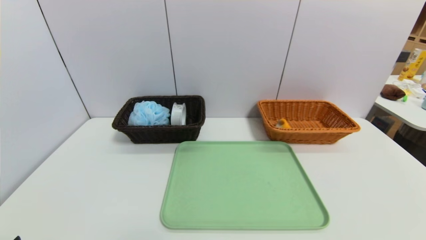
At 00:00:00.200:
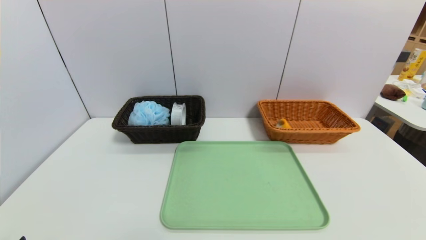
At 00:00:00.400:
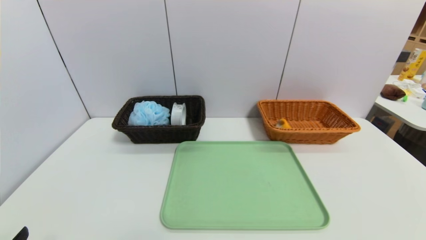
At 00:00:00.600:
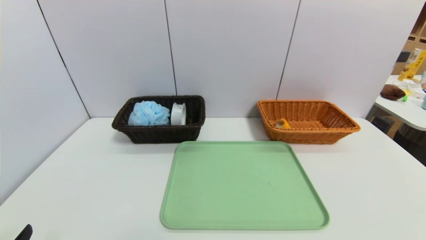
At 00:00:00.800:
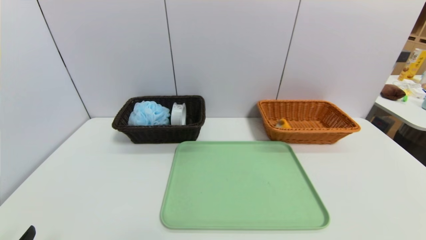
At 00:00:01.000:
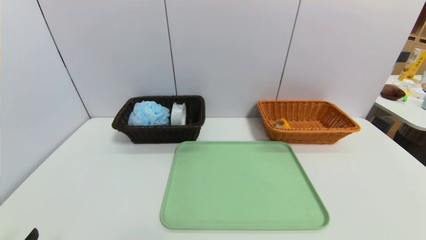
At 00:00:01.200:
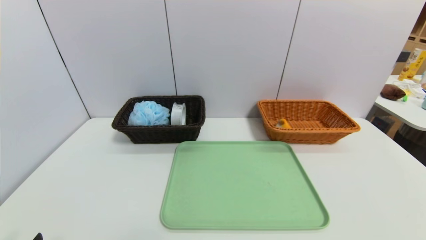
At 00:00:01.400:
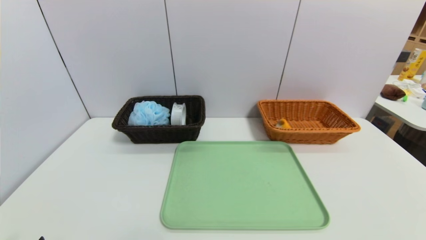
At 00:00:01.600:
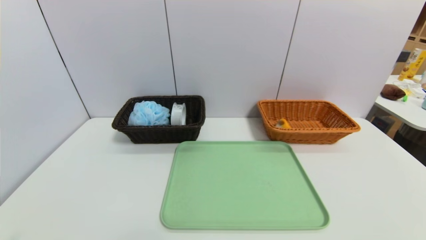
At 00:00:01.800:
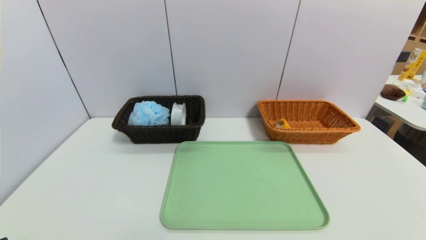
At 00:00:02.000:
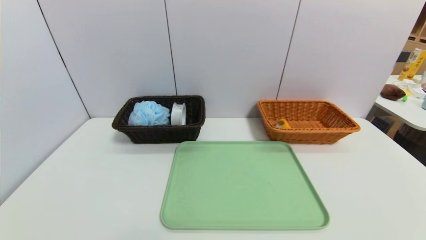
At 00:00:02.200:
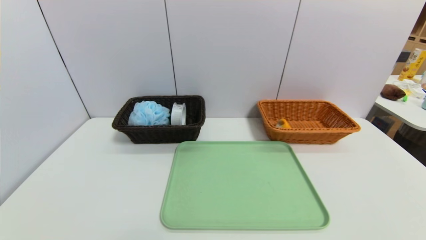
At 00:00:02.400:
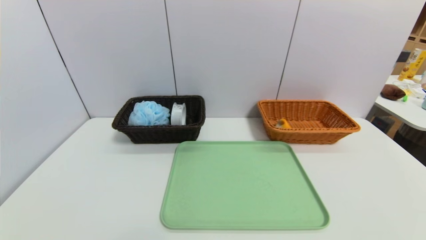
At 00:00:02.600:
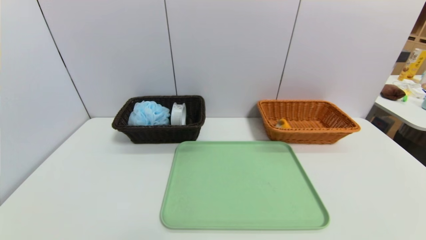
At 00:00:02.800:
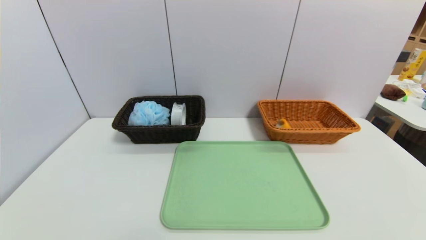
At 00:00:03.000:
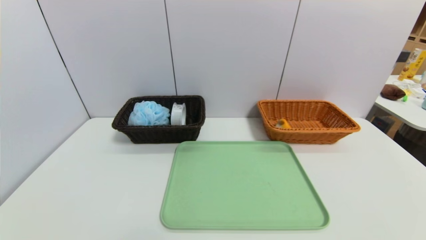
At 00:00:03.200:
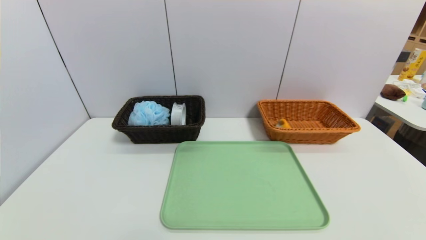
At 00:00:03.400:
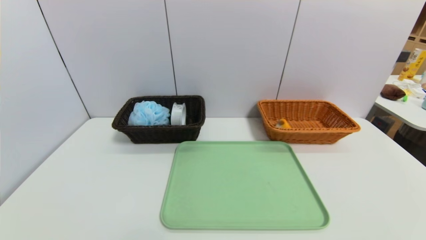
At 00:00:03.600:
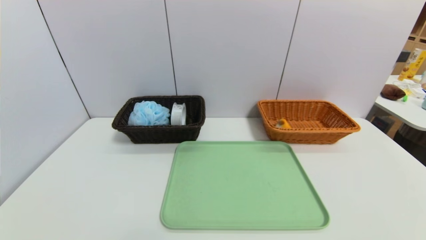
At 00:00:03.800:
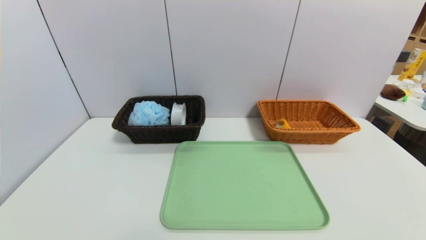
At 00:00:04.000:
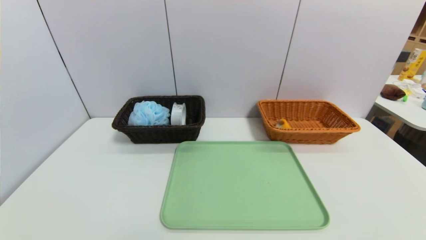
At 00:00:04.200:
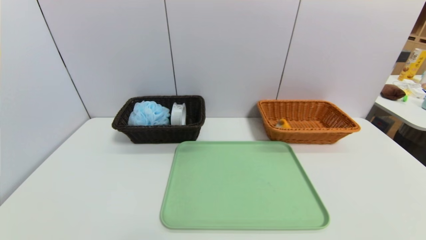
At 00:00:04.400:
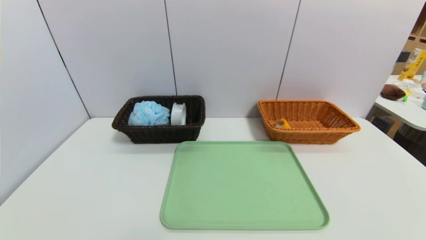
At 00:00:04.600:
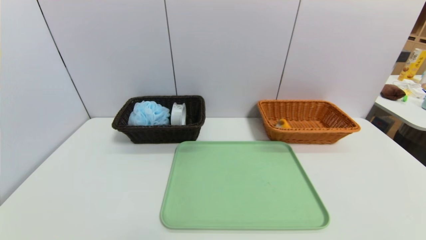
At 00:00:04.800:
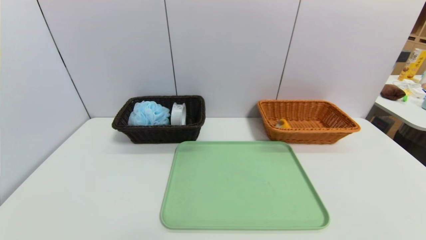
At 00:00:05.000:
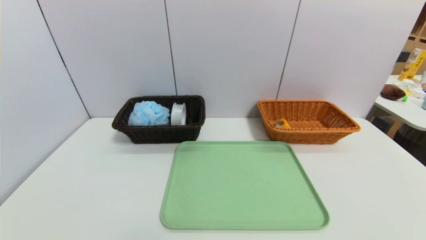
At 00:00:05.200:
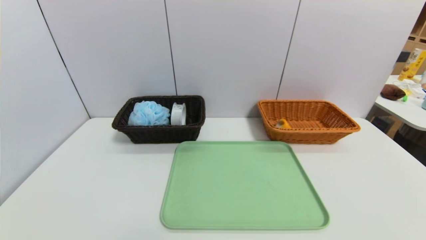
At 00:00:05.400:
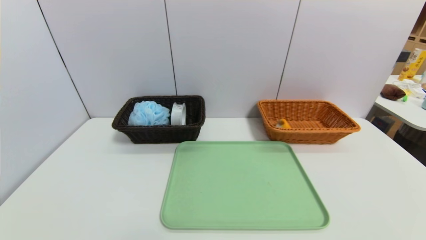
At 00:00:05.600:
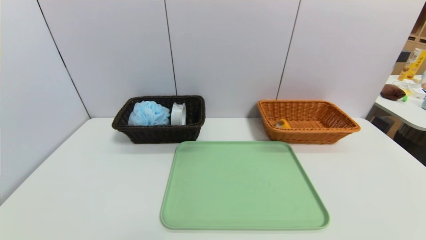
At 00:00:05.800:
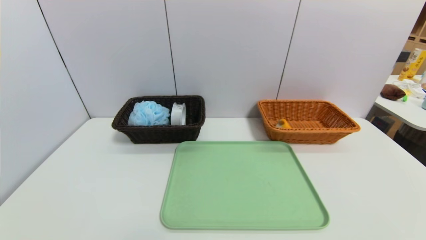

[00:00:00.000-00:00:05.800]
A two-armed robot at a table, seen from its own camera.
Task of the whole recording: place the food in the right basket with the right gripper, and place the non food items in the left basket with the left gripper.
00:00:04.400 to 00:00:05.800: Neither gripper changes place.

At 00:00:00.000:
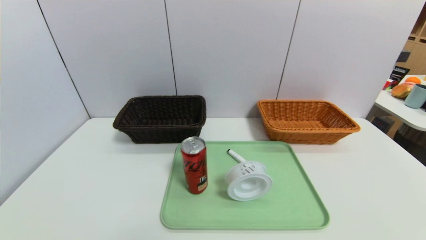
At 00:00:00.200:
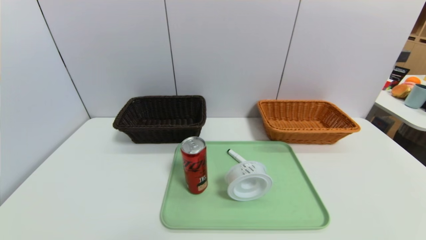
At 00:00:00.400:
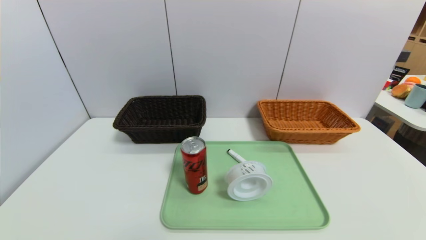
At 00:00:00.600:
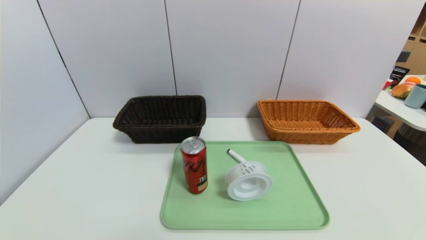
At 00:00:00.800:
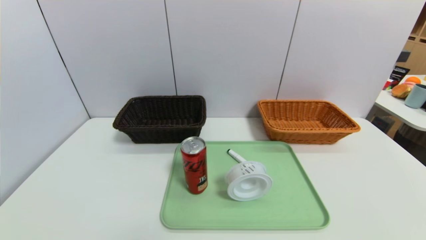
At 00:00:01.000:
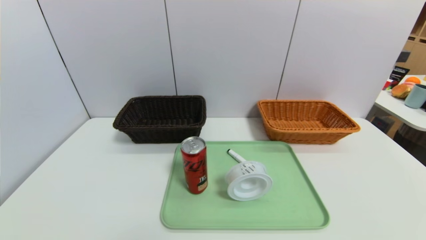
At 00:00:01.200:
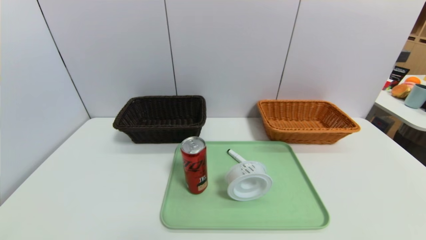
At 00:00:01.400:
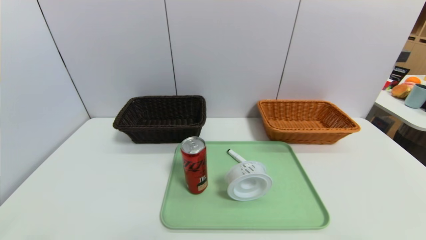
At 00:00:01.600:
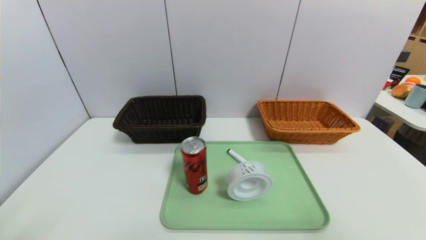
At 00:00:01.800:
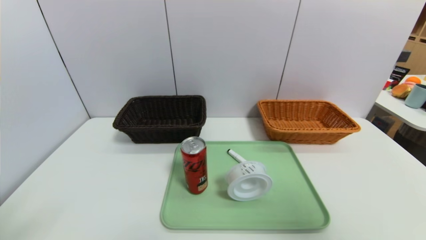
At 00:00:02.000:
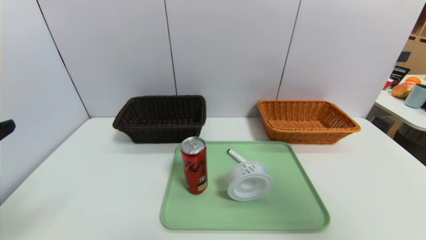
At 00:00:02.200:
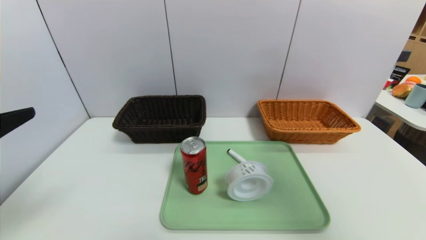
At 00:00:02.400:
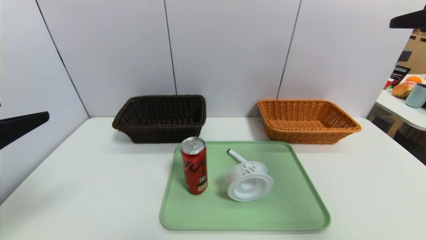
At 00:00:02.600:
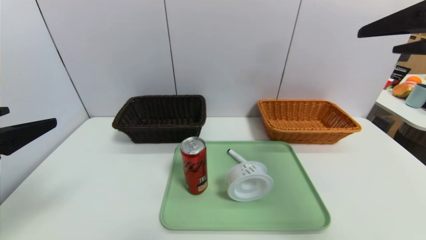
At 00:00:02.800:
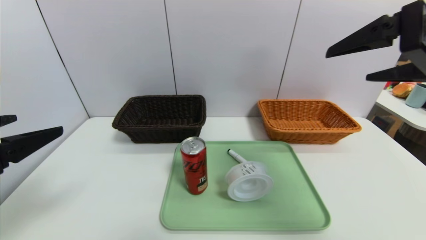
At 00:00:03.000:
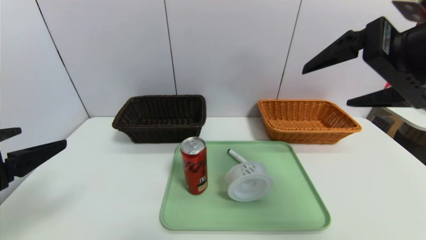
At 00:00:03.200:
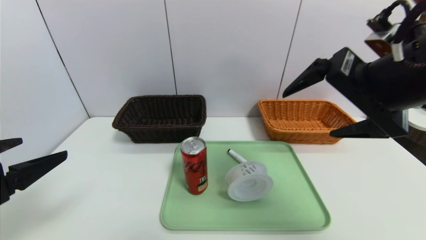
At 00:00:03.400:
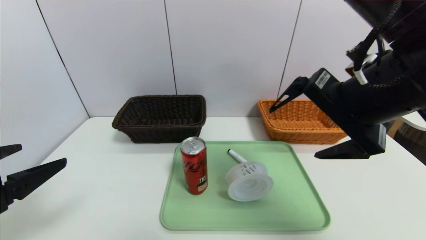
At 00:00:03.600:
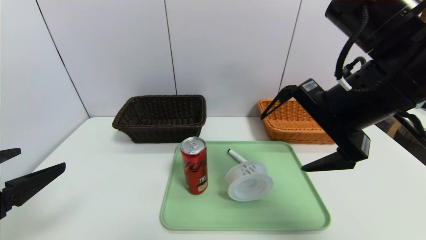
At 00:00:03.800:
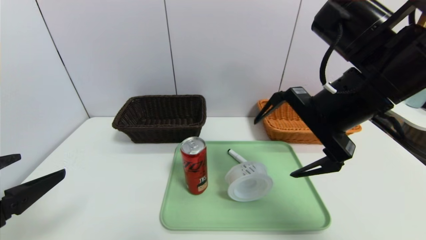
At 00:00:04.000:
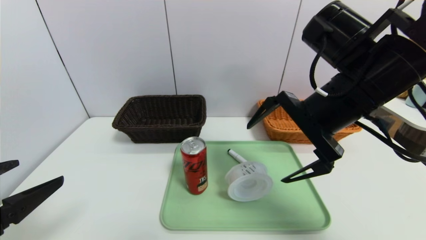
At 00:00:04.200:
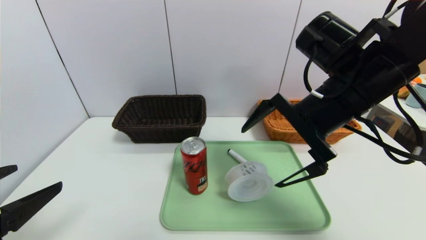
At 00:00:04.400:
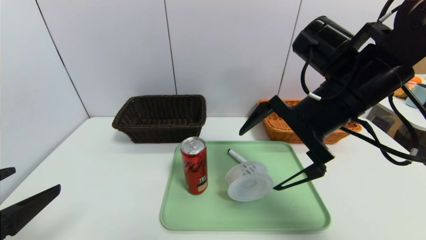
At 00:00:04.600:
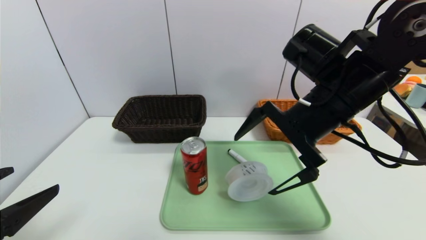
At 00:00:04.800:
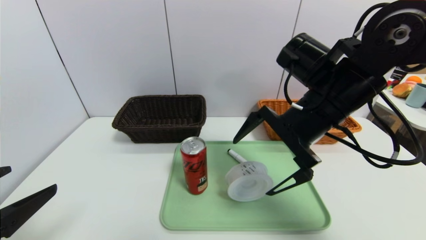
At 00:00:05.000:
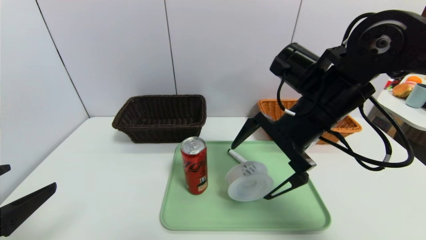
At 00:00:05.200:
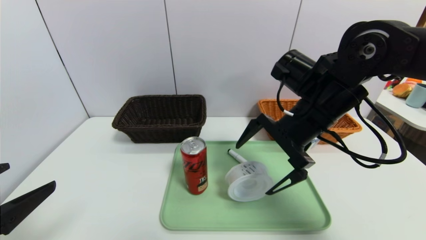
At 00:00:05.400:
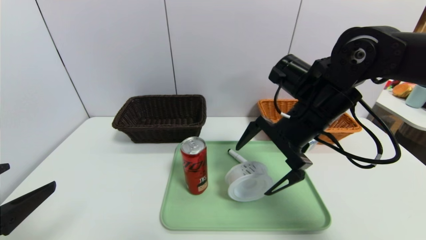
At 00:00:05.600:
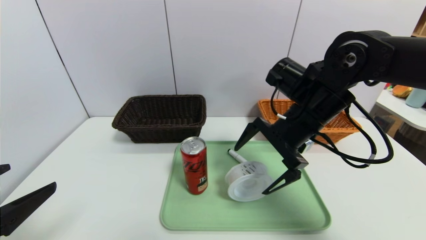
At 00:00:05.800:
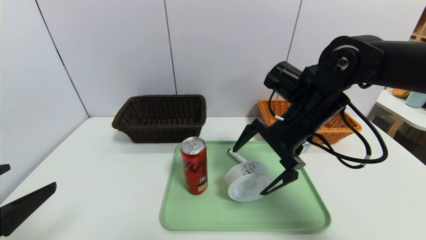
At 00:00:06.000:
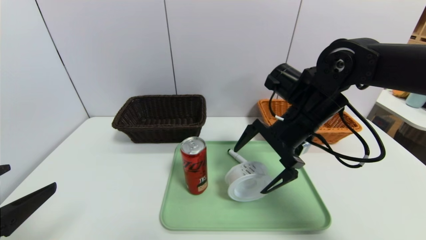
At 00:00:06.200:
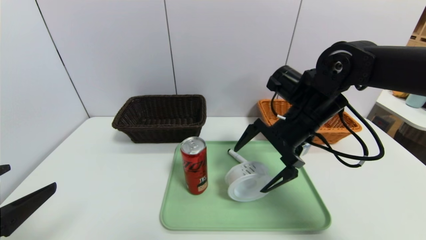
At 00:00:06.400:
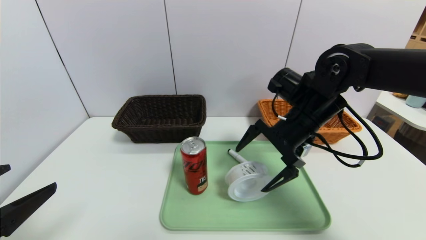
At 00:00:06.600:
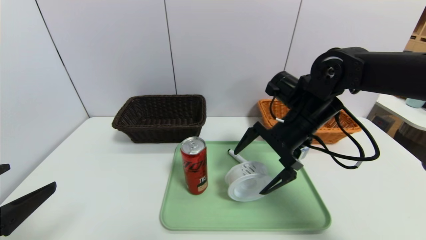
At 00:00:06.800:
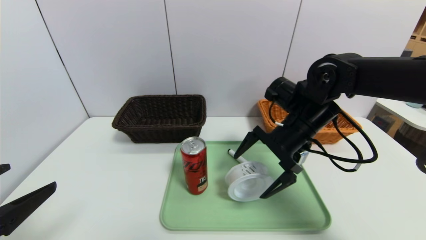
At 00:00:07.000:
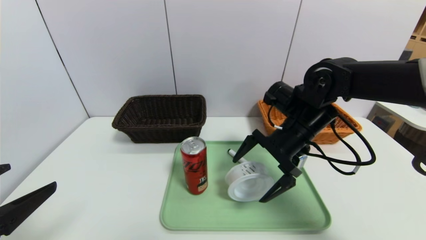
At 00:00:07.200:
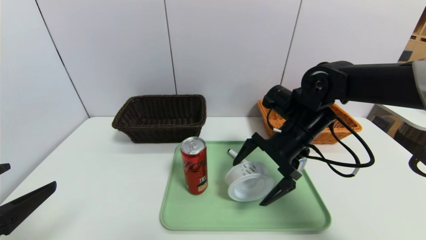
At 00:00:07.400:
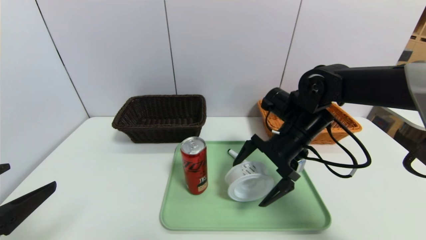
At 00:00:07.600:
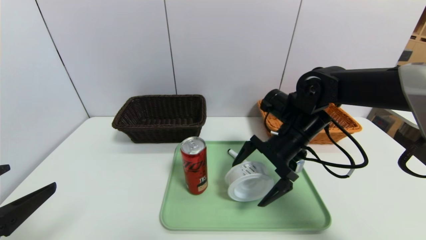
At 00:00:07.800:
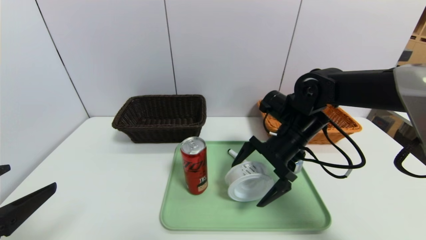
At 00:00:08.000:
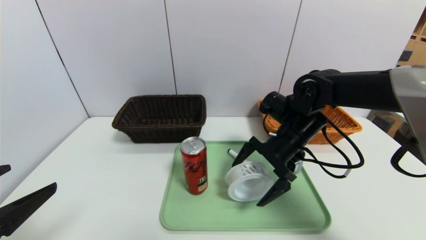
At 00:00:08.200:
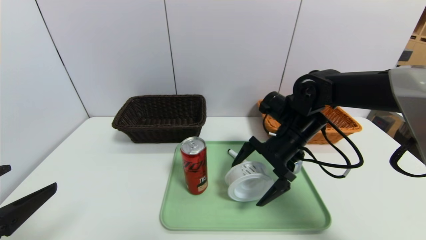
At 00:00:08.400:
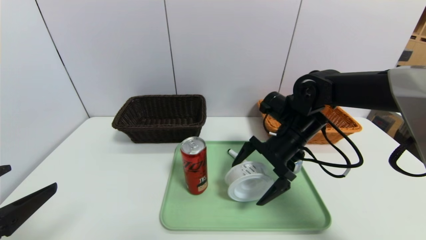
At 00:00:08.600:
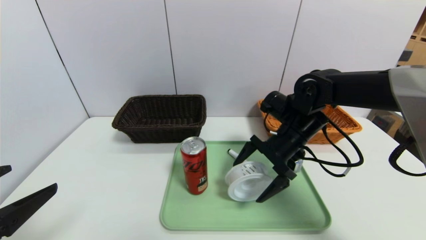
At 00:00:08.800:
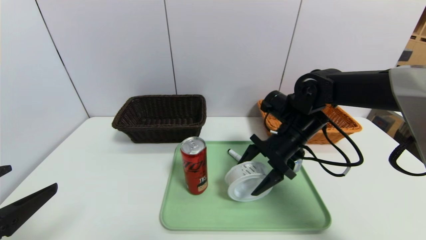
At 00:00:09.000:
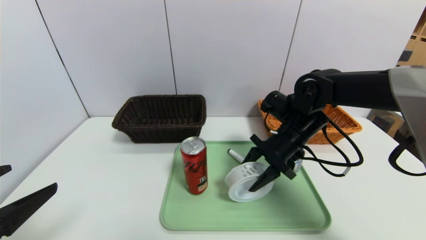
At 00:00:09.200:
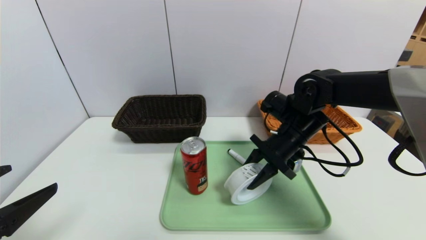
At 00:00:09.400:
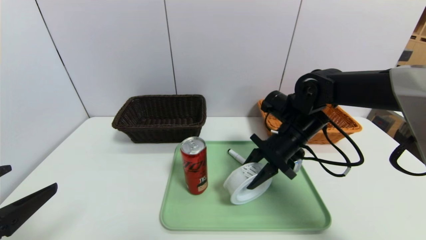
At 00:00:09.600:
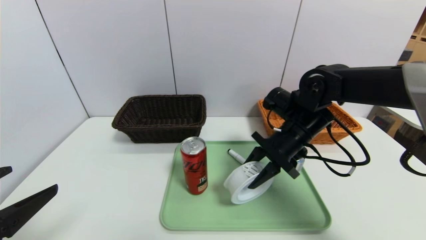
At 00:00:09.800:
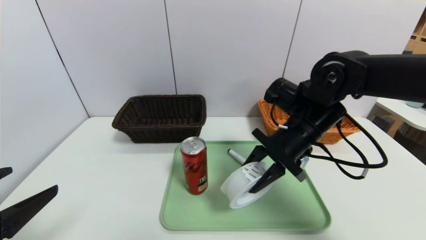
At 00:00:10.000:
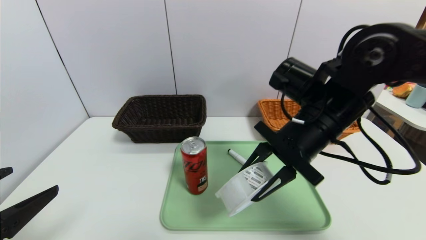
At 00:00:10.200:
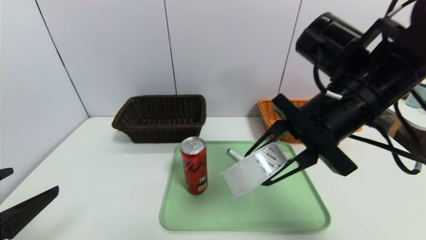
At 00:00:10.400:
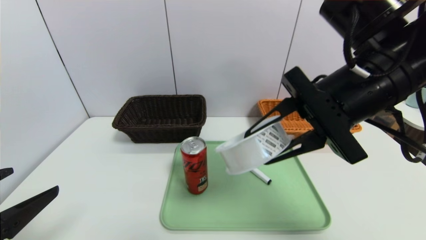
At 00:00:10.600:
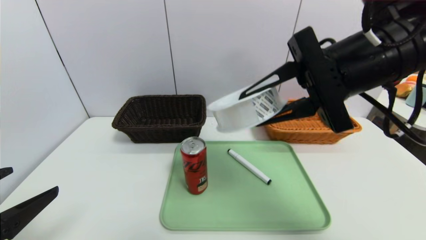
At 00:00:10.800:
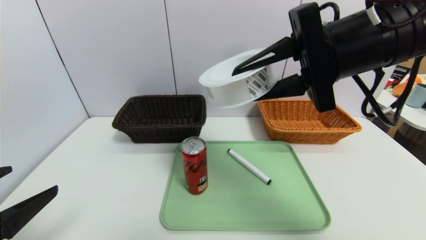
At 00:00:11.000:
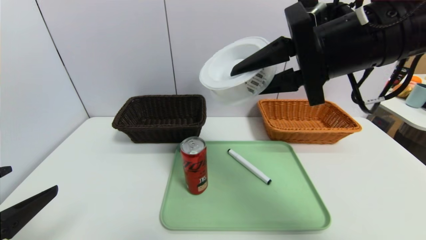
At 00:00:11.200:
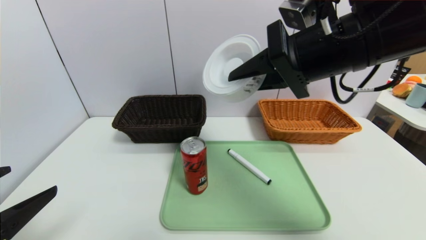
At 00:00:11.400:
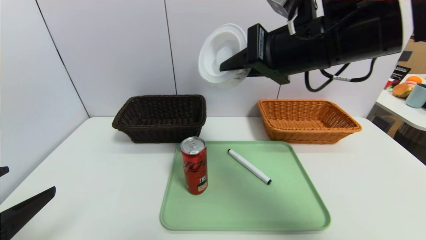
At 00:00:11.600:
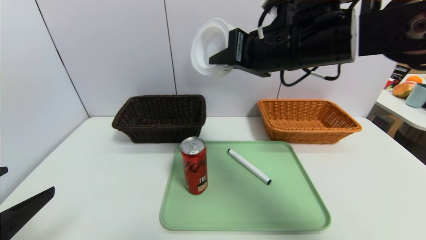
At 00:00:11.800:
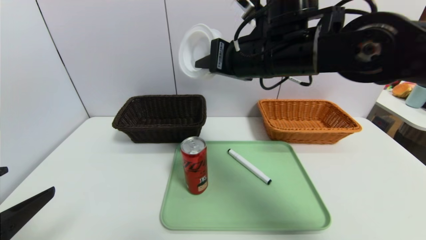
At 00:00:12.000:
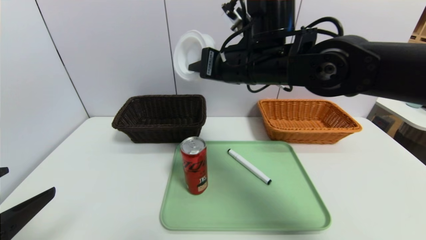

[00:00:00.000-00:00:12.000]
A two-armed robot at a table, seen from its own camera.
Task of the whole recording: place the food in the right basket with the right gripper, and place the non food items in the left basket with the left gripper.
00:00:01.600 to 00:00:03.000: The right gripper heads forward and to the left, covering about 20 cm; the left gripper shifts roughly 10 cm forward.
00:00:03.000 to 00:00:04.400: The left gripper moves some 5 cm. The right gripper is displaced downward and forward by about 10 cm.
00:00:04.400 to 00:00:06.000: The right gripper heads downward and forward, covering approximately 10 cm.
00:00:06.000 to 00:00:07.600: The right gripper moves some 5 cm.
00:00:07.600 to 00:00:09.000: The right gripper closes.
00:00:09.000 to 00:00:10.400: The right gripper is displaced upward and backward by about 20 cm.
00:00:10.400 to 00:00:12.000: The right gripper shifts about 15 cm to the left and forward.
